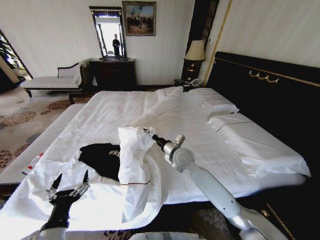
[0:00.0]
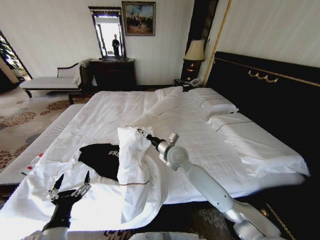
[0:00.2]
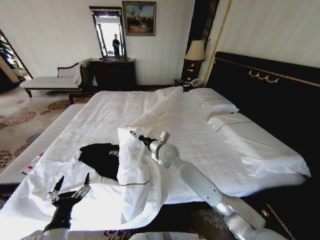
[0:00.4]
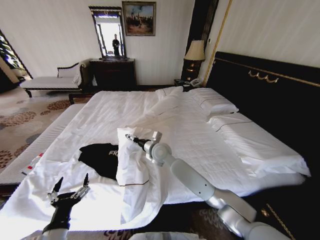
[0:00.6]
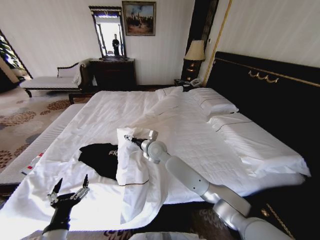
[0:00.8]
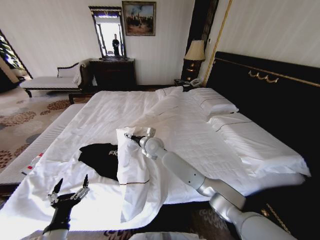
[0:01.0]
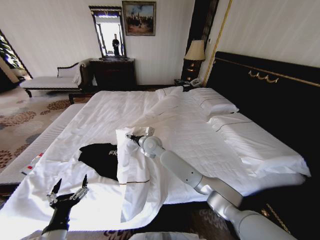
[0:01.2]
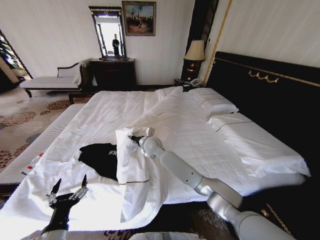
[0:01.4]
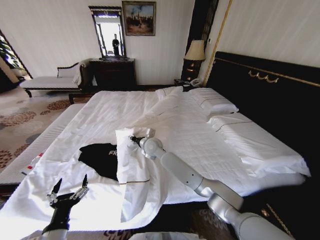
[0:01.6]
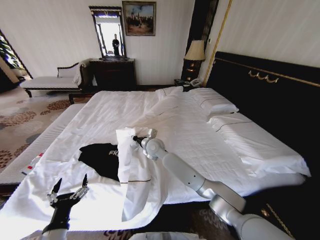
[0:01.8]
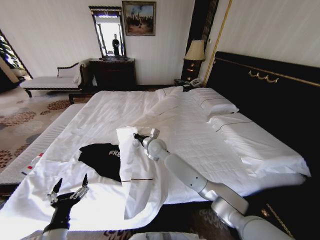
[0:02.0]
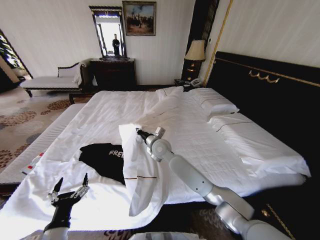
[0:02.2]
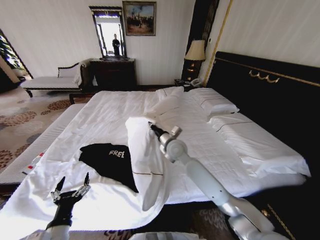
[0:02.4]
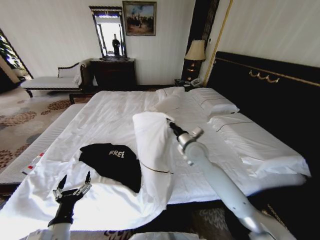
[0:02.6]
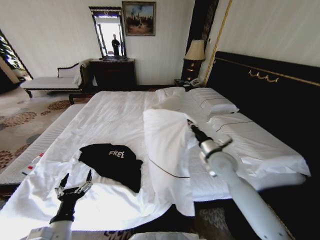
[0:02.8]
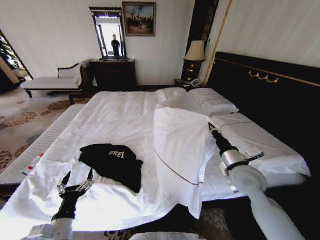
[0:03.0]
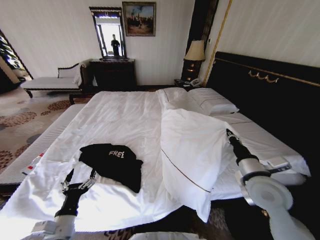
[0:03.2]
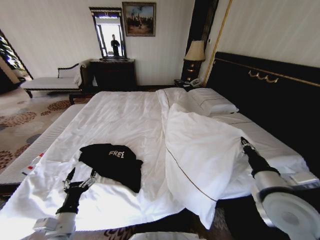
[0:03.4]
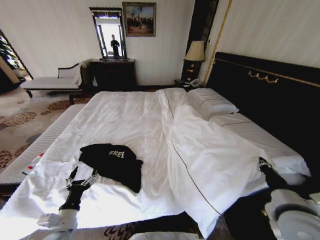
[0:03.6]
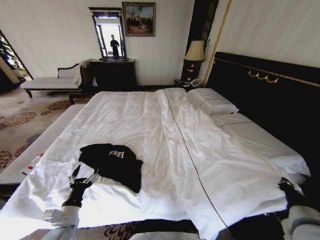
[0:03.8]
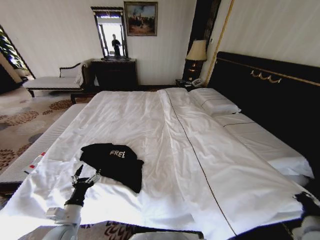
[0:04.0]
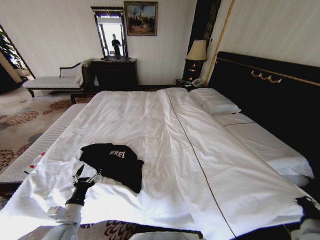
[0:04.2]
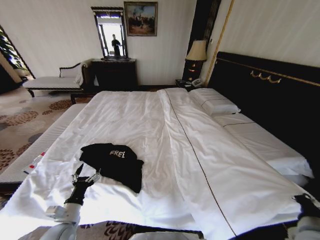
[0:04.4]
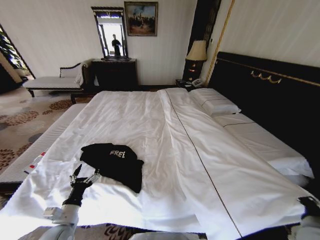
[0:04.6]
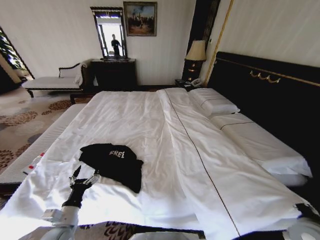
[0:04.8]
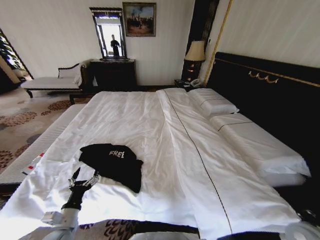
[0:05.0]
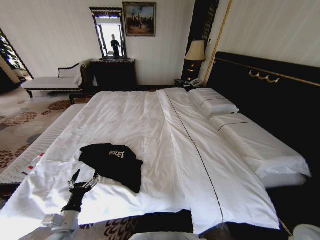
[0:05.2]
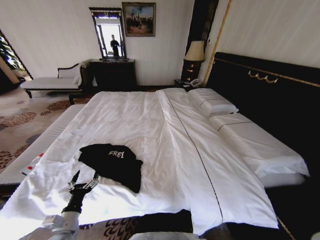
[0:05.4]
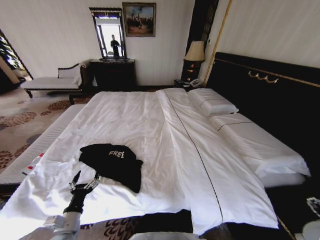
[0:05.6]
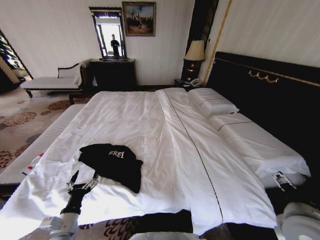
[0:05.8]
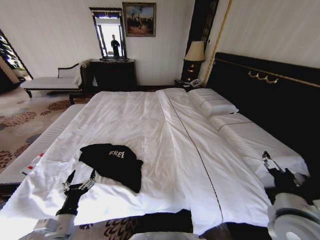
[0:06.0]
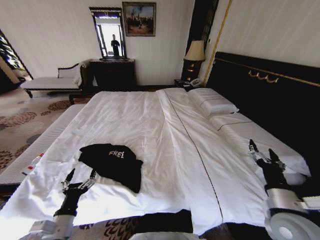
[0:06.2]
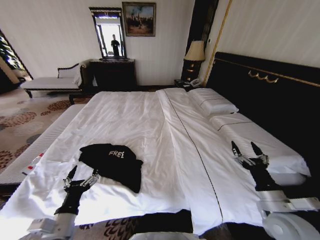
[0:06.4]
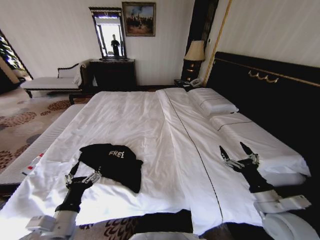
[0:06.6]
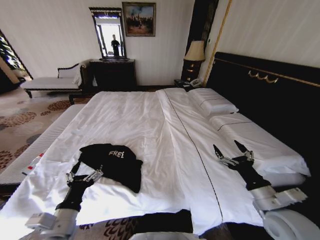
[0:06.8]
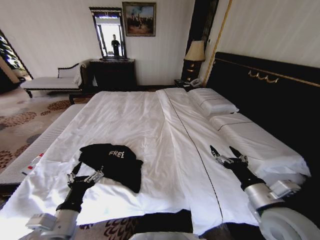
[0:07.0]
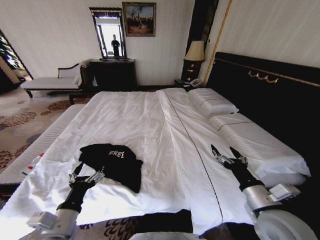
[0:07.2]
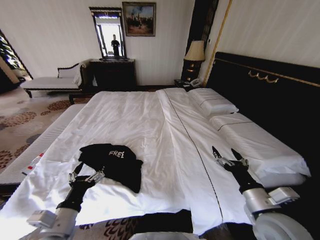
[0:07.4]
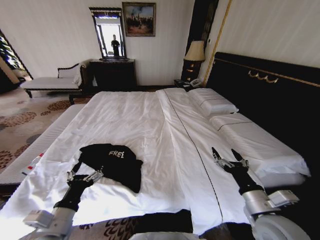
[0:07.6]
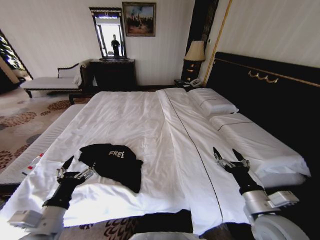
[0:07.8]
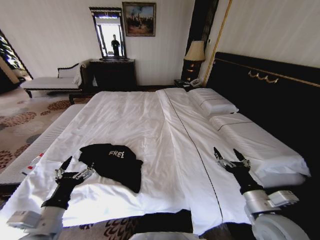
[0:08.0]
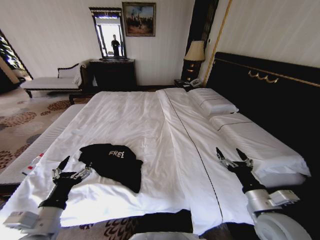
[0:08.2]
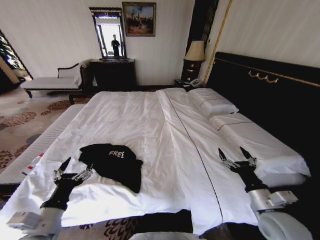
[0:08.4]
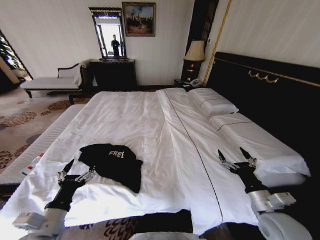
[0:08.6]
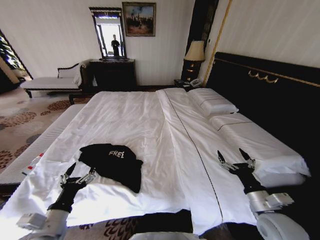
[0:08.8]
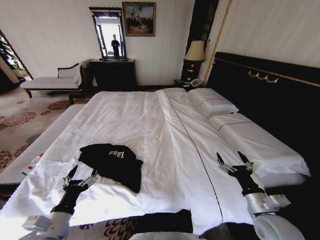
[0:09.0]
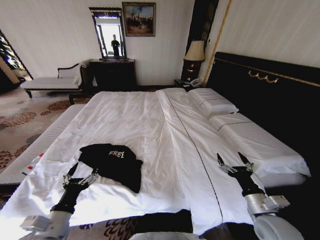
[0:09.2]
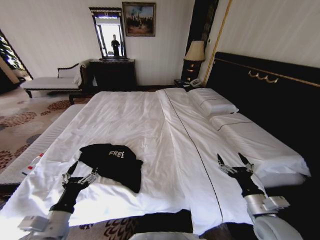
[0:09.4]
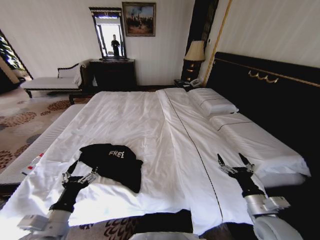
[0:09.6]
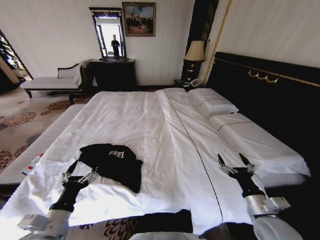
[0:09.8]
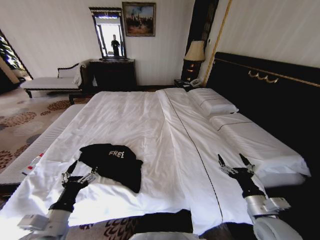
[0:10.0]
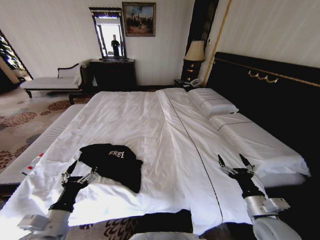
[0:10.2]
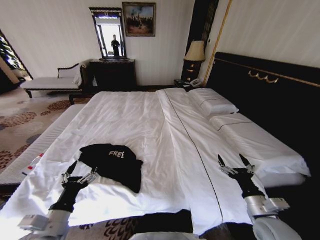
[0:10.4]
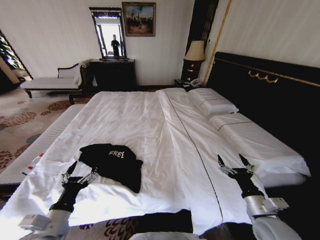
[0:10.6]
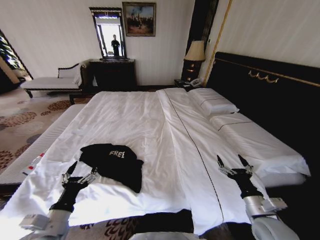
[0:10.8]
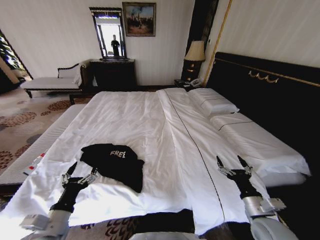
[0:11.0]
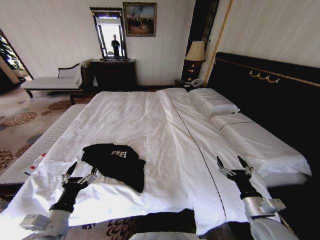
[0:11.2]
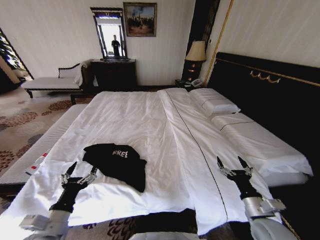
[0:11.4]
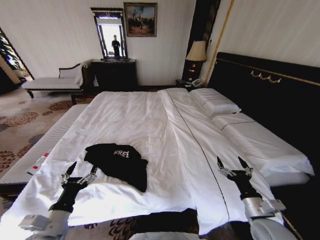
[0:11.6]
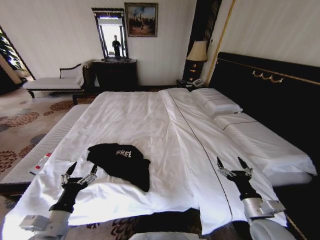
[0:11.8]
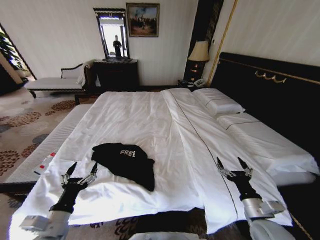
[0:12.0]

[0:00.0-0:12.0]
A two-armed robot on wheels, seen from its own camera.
Task of the whole recording: Fold the clothes on the bed.
0:00.0 to 0:01.6: The right gripper is displaced to the left and forward by about 15 cm, and closes.
0:01.6 to 0:03.0: The right gripper shifts some 35 cm to the right and backward, and closes.
0:03.0 to 0:04.4: The left gripper moves forward, some 5 cm. Meanwhile the right gripper shifts roughly 20 cm backward.
0:04.4 to 0:06.0: The right gripper moves some 10 cm to the right and comes back, and opens.
0:06.0 to 0:07.6: The left gripper is displaced upward by about 10 cm.
0:07.6 to 0:09.0: The right gripper travels downward by some 5 cm. Meanwhile the left gripper moves approximately 5 cm.
0:09.0 to 0:10.4: The grippers make only small movements.

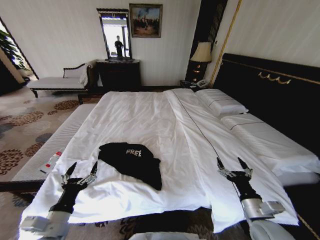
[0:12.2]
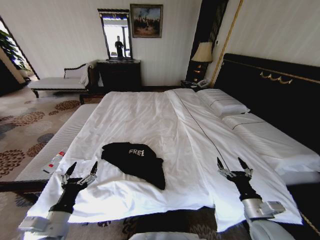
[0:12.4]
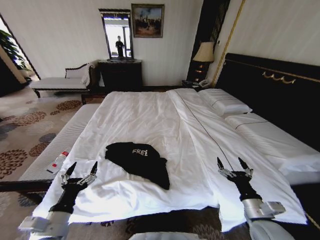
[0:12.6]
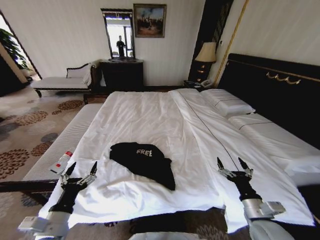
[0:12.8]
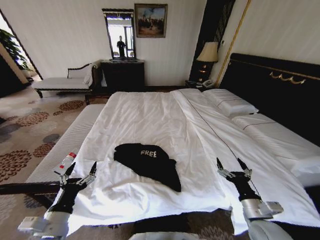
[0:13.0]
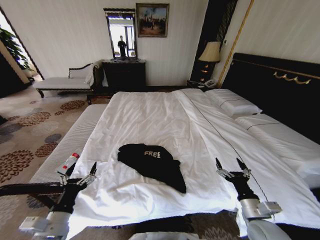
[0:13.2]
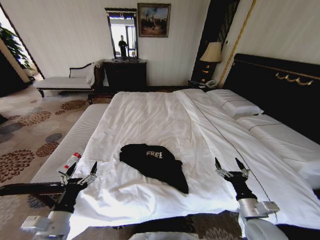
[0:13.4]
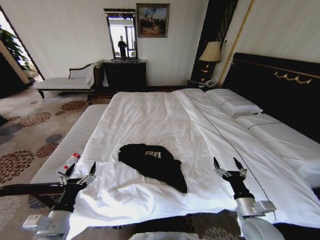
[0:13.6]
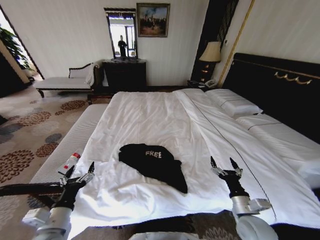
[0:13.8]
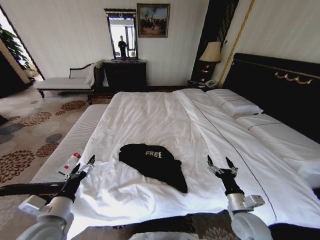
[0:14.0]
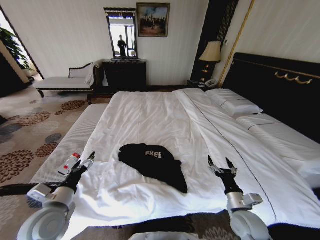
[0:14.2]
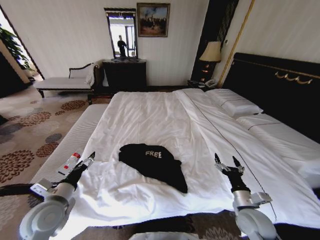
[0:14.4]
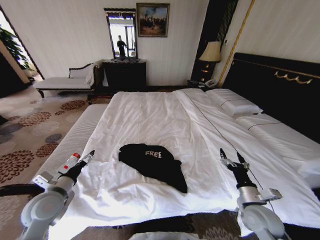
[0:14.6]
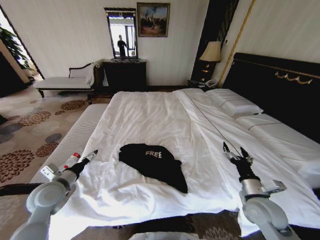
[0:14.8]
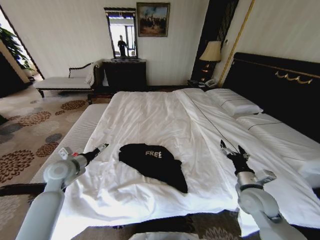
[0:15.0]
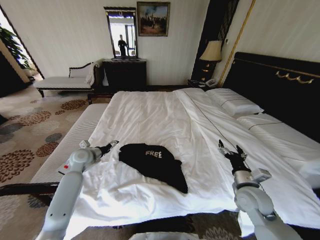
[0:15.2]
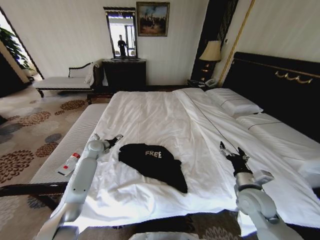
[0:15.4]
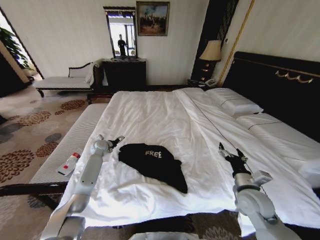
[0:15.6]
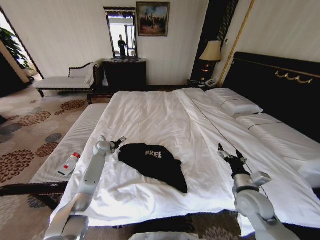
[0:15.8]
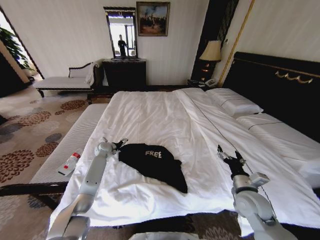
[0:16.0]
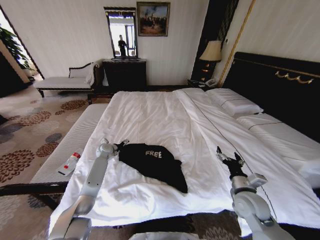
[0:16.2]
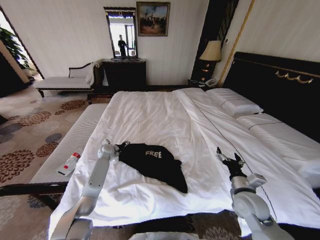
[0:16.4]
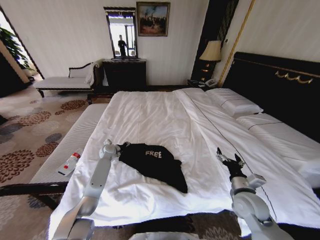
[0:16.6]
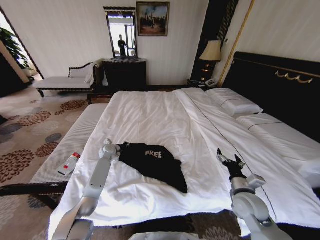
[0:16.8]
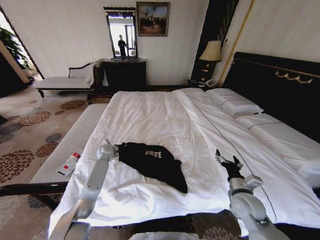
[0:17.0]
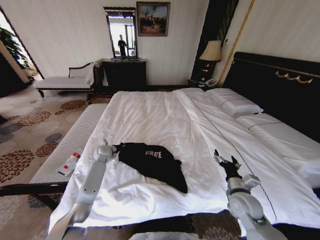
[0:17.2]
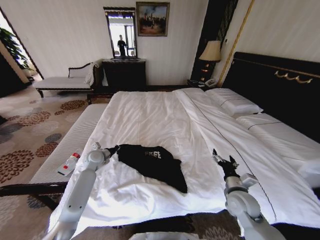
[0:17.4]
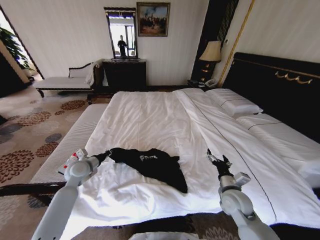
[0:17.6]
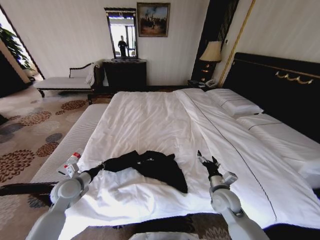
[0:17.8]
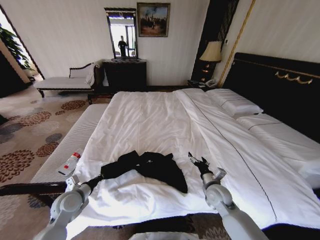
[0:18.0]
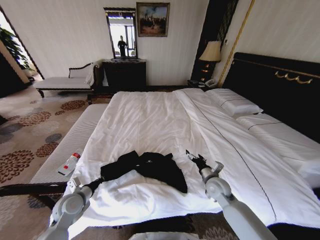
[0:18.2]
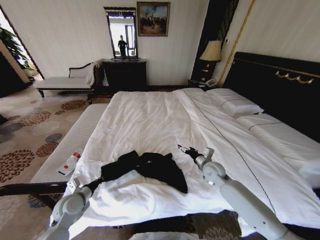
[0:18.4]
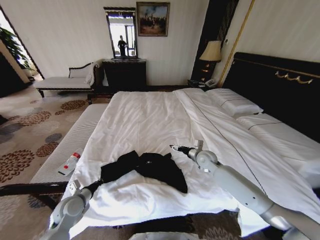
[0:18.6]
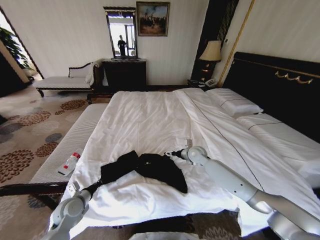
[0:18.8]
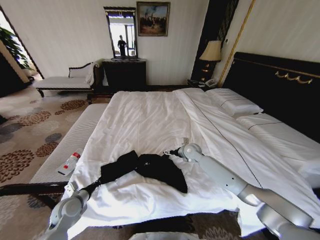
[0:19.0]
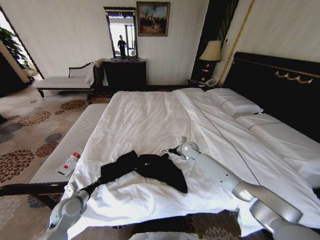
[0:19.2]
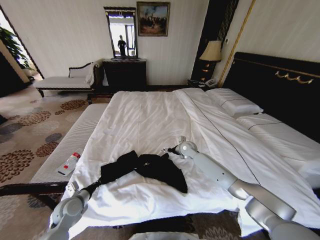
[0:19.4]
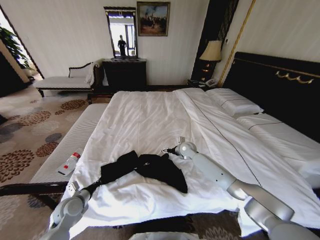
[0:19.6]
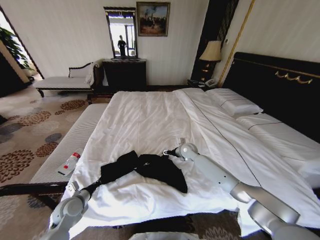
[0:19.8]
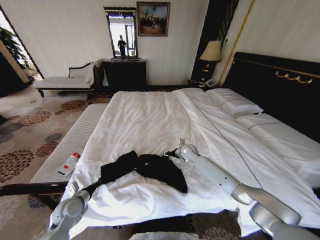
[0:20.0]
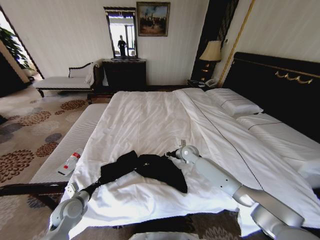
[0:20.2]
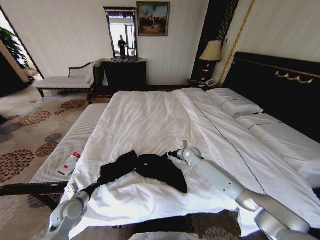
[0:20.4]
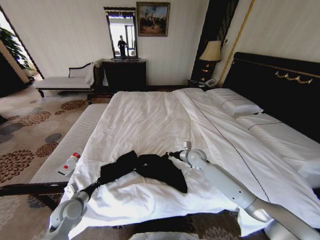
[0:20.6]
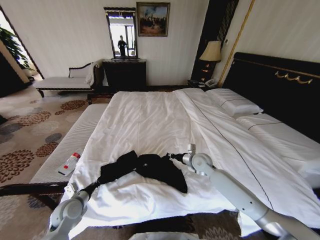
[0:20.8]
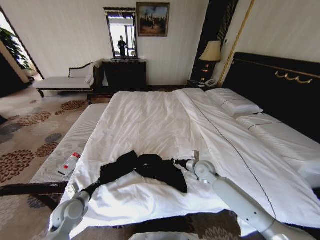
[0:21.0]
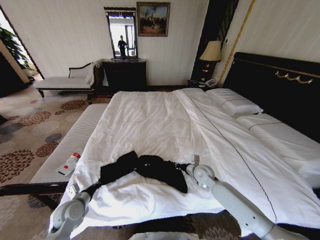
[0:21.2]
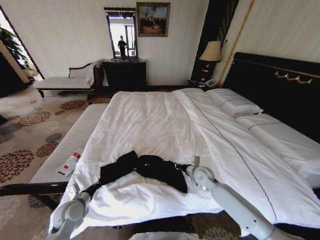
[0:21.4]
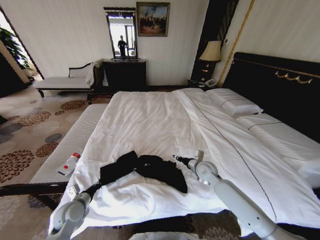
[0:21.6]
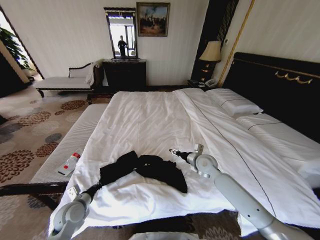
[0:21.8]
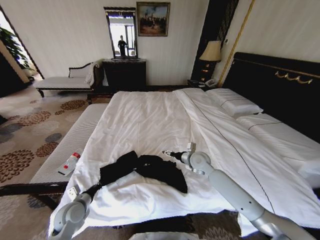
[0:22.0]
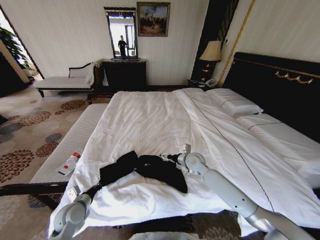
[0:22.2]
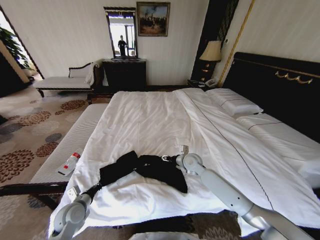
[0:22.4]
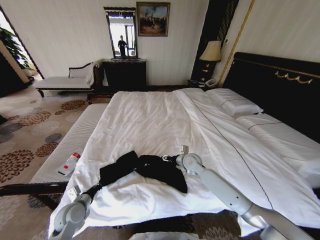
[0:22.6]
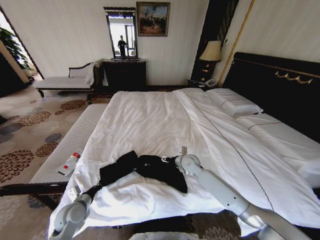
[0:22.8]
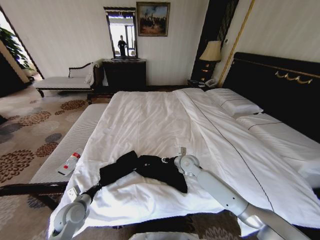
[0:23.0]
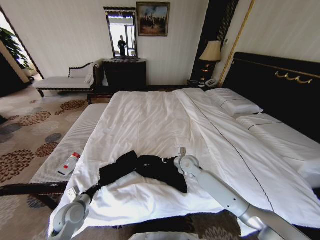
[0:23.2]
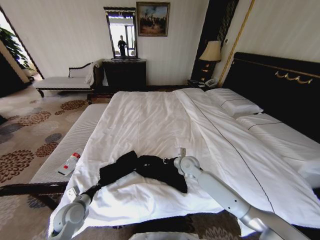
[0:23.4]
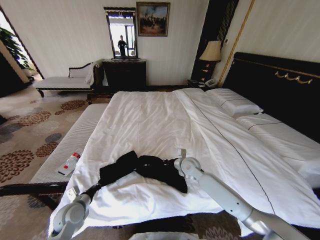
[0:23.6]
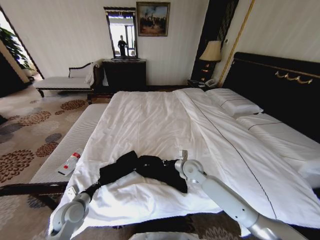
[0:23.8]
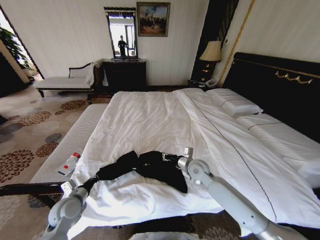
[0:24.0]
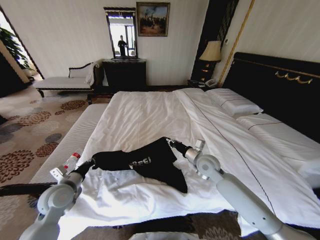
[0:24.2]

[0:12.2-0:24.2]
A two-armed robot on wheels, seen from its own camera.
Task of the whole recording: Fold the clothes on the bed.
0:13.8 to 0:15.2: The right gripper travels forward by about 10 cm, while the left gripper heads forward, covering about 30 cm.
0:15.2 to 0:16.6: The left gripper heads forward, downward and to the right, covering about 20 cm, and closes its fingers.
0:16.6 to 0:18.2: The left gripper heads backward, covering approximately 30 cm, and closes its fingers. Meanwhile the right gripper is displaced forward and to the left by about 10 cm.
0:18.2 to 0:19.8: The right gripper shifts some 20 cm forward and to the left.
0:19.8 to 0:21.2: The right gripper moves backward, some 15 cm, and closes up.
0:21.2 to 0:22.6: The right gripper heads to the left, covering some 5 cm, and opens.
0:22.6 to 0:24.2: The right gripper moves upward and backward, approximately 10 cm, and closes up. Meanwhile the left gripper is displaced upward by approximately 10 cm.
